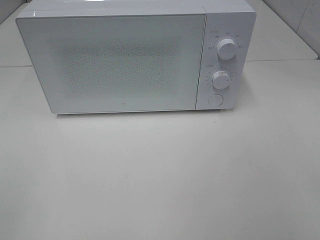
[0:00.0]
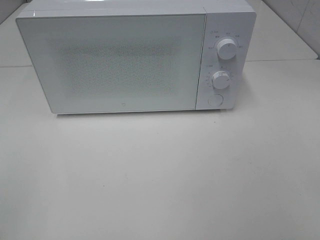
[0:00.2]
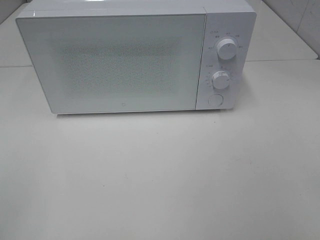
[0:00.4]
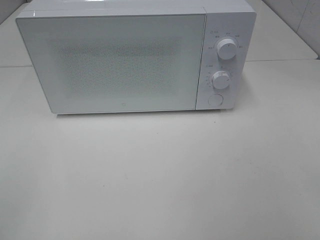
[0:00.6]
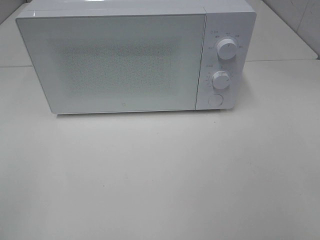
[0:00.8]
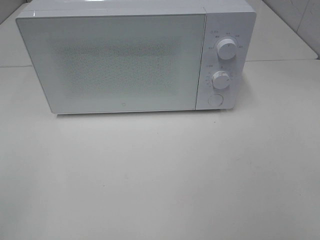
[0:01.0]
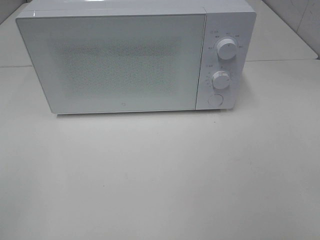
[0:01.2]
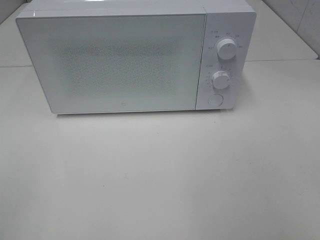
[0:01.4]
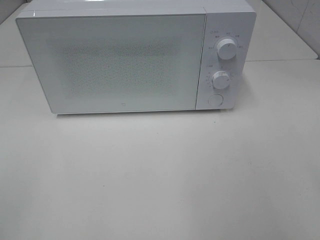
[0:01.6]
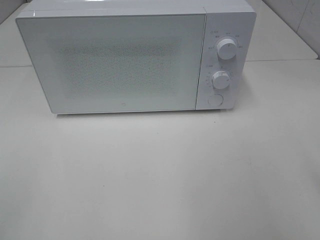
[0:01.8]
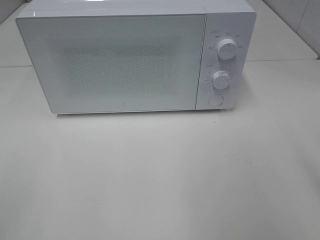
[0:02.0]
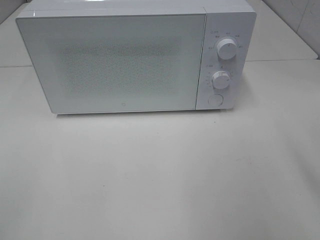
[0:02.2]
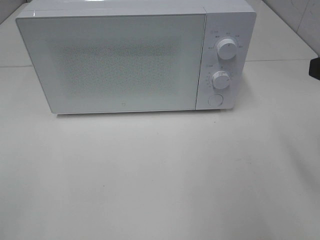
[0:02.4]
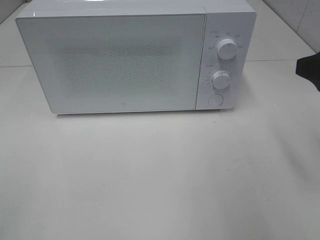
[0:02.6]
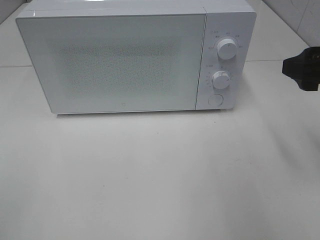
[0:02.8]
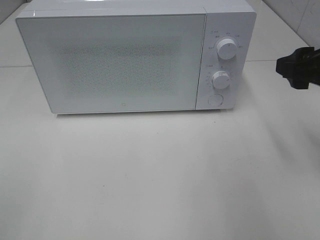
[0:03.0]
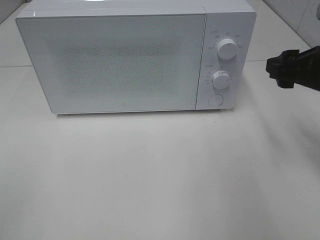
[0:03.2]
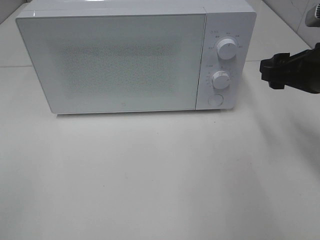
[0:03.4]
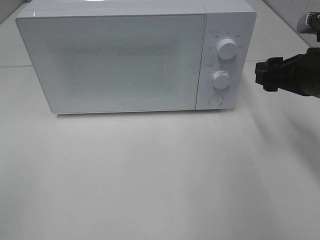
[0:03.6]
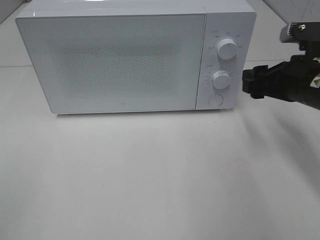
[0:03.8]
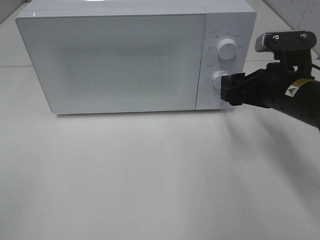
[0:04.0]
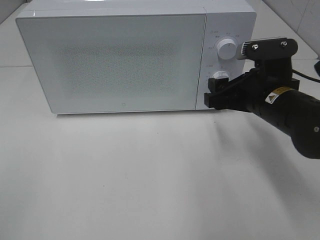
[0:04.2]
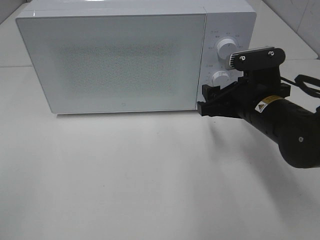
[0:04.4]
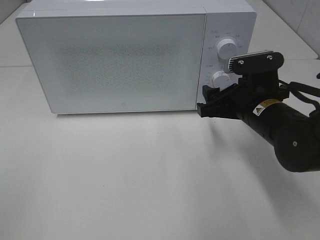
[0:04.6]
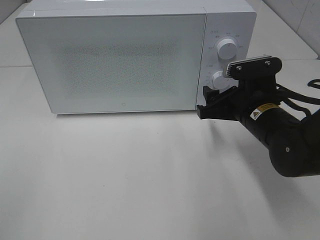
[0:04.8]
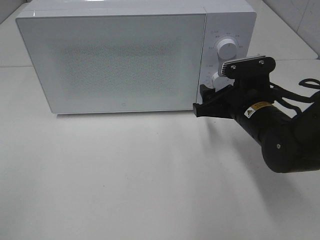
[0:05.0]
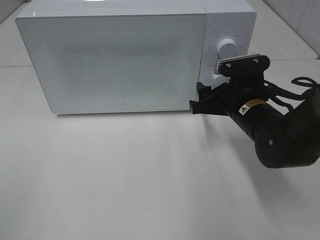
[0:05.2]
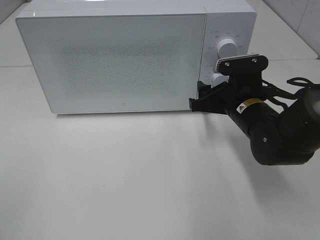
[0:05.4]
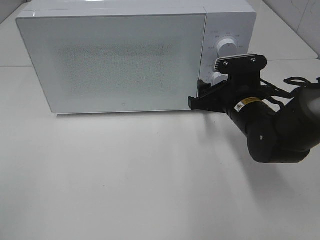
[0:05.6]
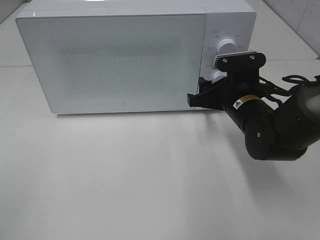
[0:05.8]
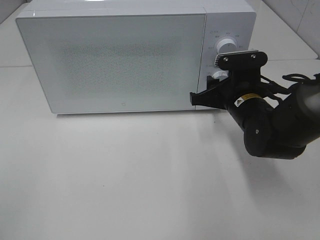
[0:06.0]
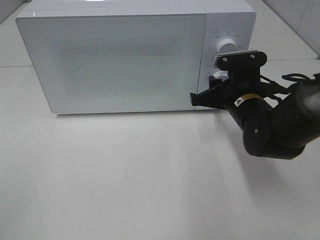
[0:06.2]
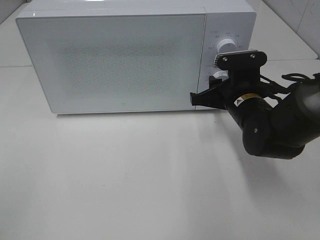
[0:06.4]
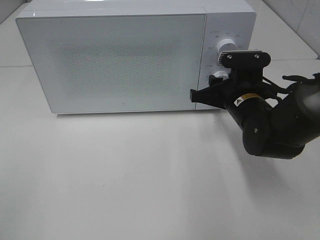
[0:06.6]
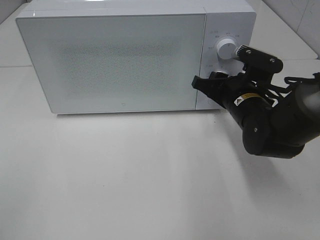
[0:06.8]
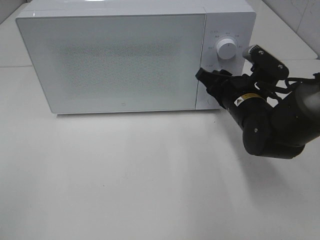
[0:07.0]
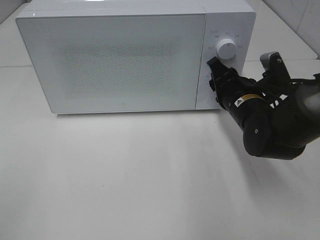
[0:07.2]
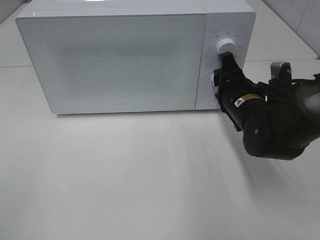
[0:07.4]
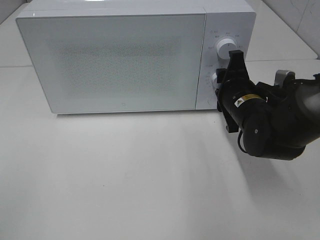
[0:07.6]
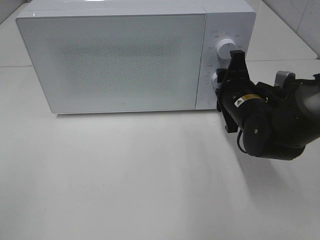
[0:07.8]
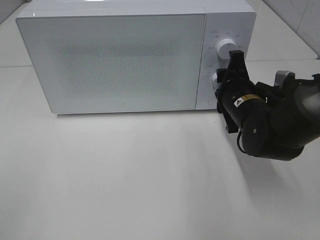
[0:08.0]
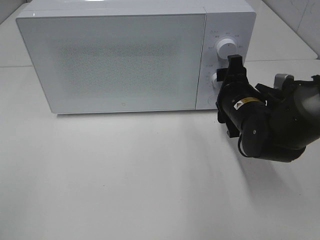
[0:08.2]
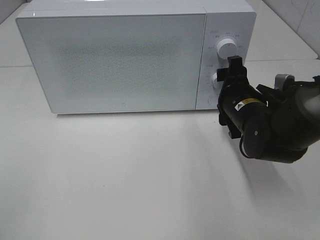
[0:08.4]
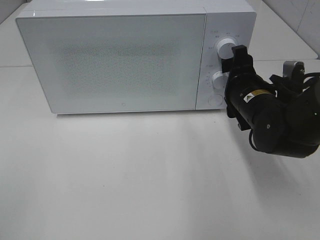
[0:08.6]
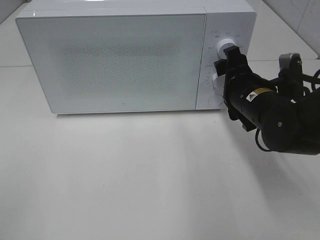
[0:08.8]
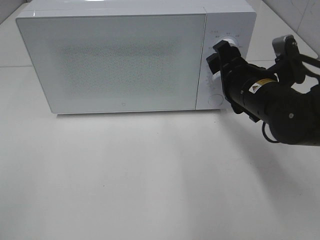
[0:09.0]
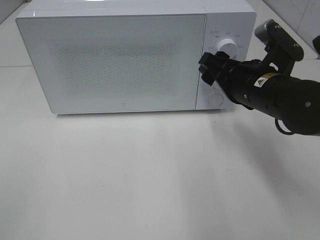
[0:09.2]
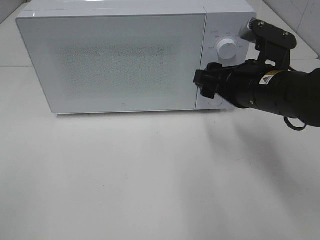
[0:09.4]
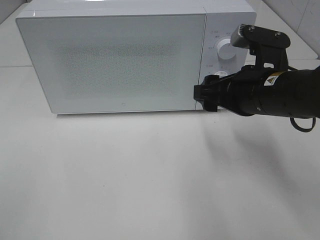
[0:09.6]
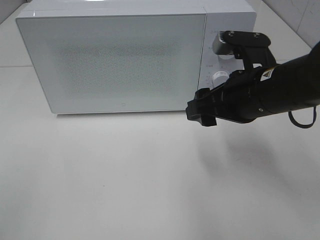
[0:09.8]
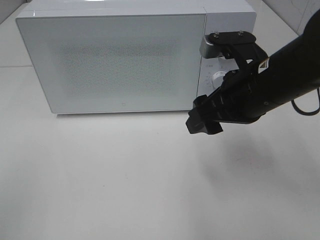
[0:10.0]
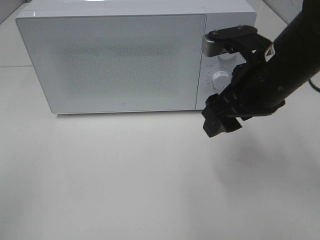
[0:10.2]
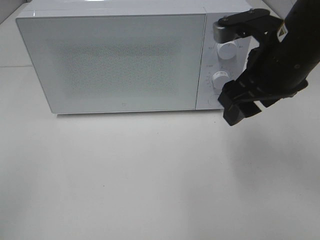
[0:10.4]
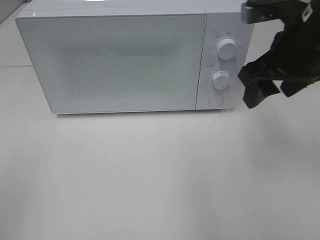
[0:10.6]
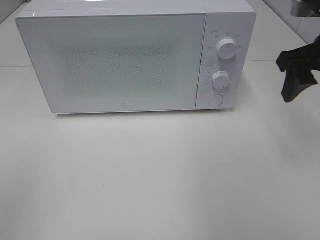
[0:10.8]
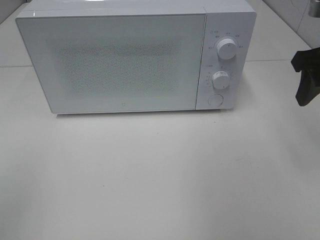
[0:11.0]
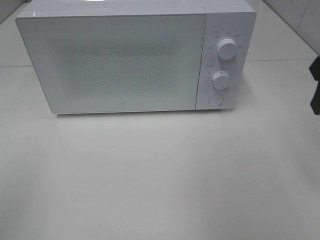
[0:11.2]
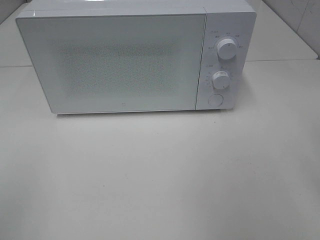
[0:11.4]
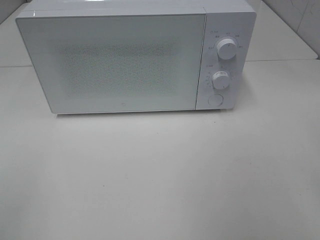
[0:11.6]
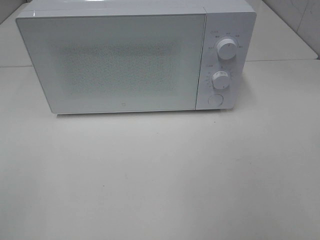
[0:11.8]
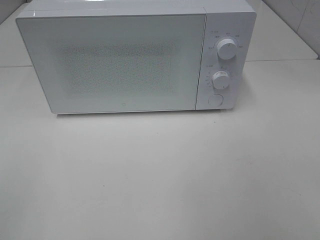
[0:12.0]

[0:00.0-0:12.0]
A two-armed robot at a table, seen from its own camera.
Task of the whole recording: Heat the burger.
Step, 0:00.0 to 0:08.4: Right hand: twist timer button.
0:01.6 to 0:03.0: The right gripper moves forward, some 15 cm.
0:03.0 to 0:04.4: The right gripper goes roughly 15 cm downward and to the left.
0:04.4 to 0:06.0: The right gripper moves about 5 cm.
0:07.6 to 0:09.0: The right gripper ends up approximately 5 cm from where it was, and opens its fingers.
0:09.0 to 0:10.4: The right gripper travels upward by approximately 10 cm.
0:10.4 to 0:12.0: The right gripper shifts roughly 25 cm backward and to the right.

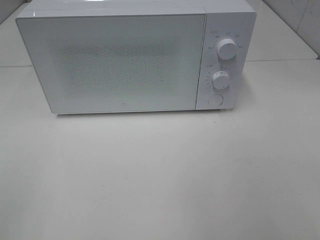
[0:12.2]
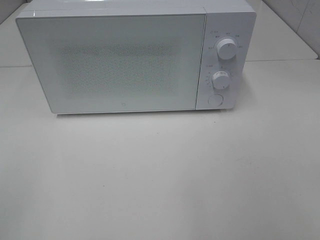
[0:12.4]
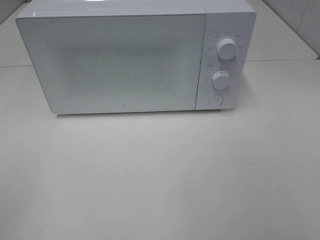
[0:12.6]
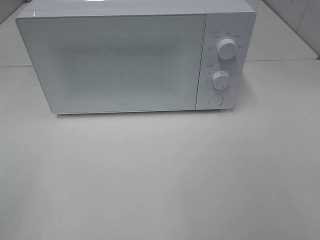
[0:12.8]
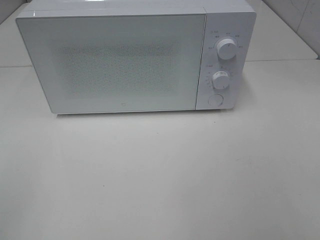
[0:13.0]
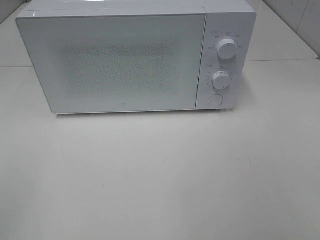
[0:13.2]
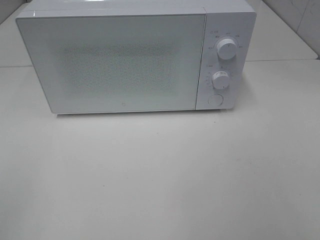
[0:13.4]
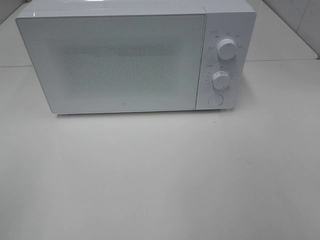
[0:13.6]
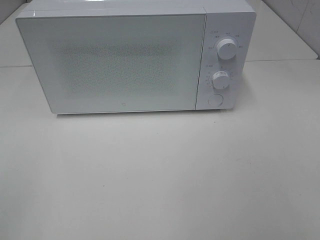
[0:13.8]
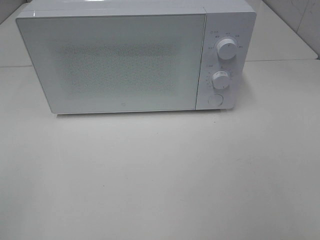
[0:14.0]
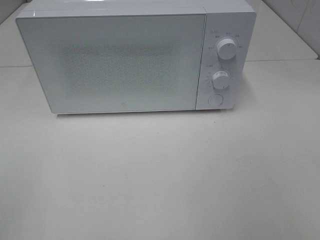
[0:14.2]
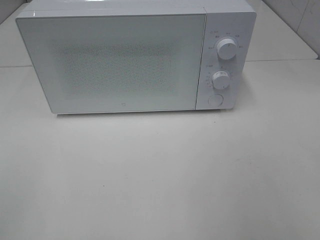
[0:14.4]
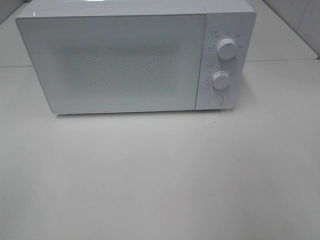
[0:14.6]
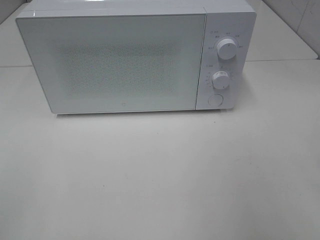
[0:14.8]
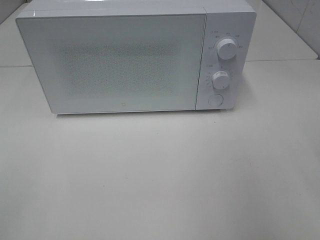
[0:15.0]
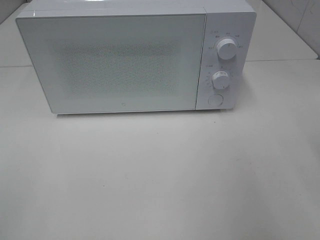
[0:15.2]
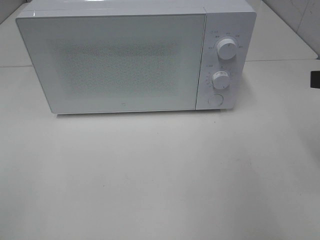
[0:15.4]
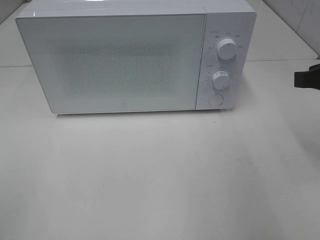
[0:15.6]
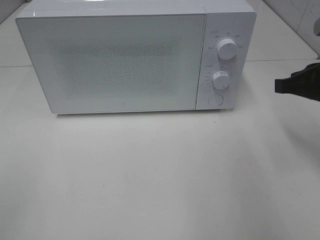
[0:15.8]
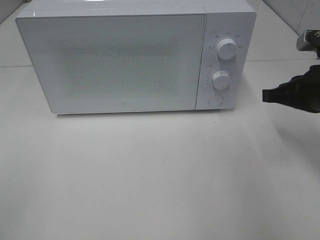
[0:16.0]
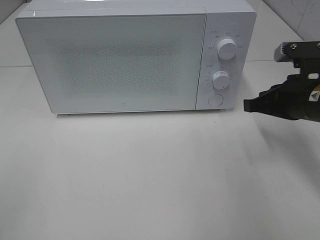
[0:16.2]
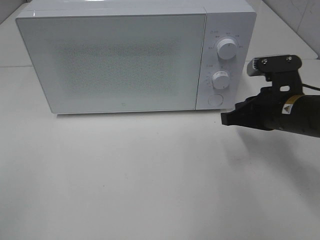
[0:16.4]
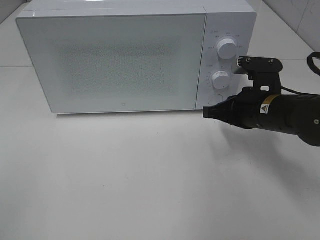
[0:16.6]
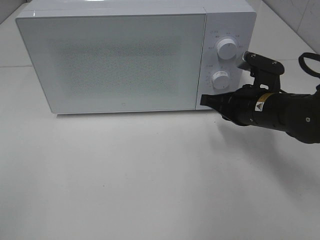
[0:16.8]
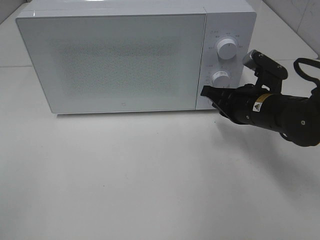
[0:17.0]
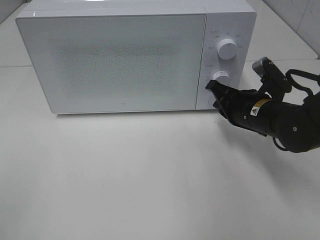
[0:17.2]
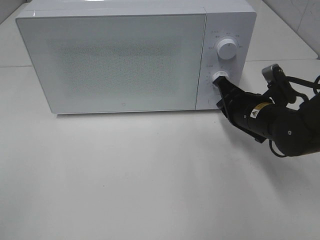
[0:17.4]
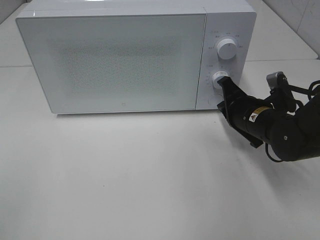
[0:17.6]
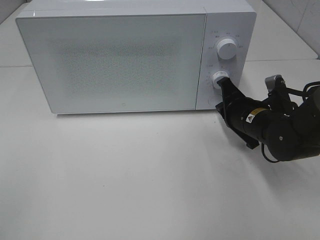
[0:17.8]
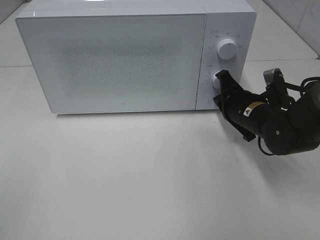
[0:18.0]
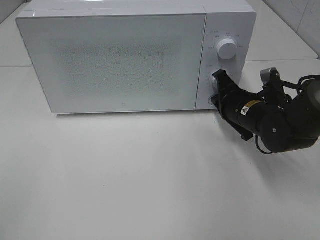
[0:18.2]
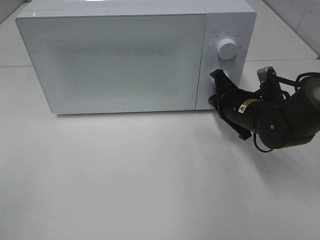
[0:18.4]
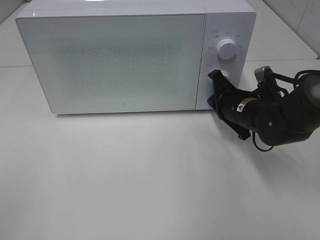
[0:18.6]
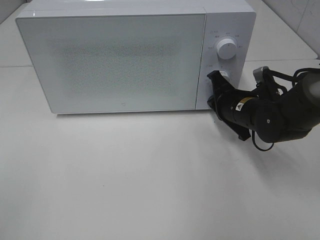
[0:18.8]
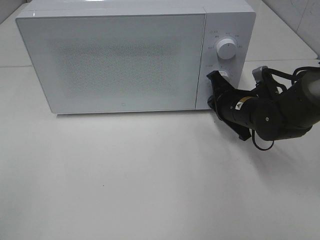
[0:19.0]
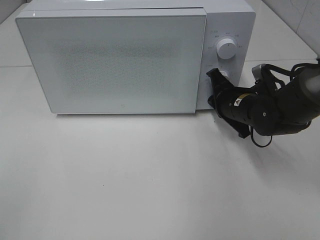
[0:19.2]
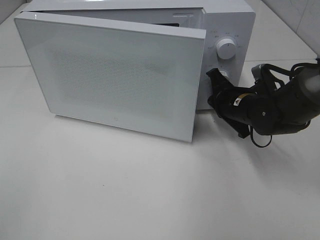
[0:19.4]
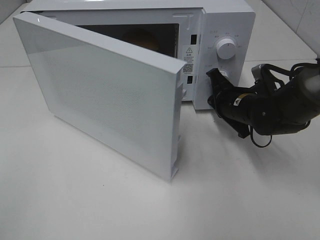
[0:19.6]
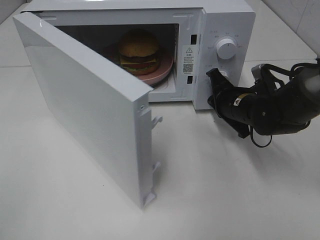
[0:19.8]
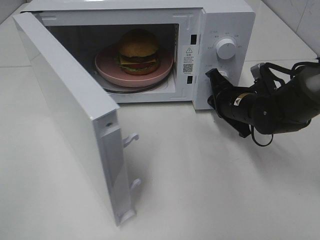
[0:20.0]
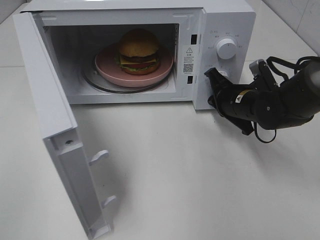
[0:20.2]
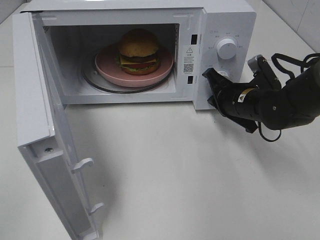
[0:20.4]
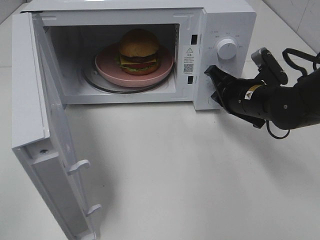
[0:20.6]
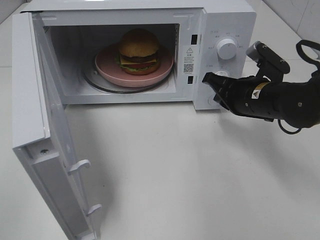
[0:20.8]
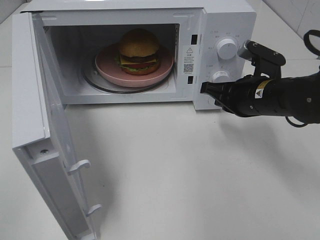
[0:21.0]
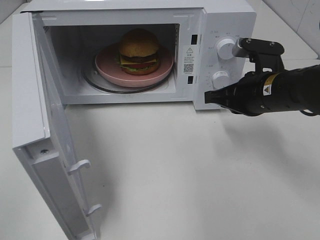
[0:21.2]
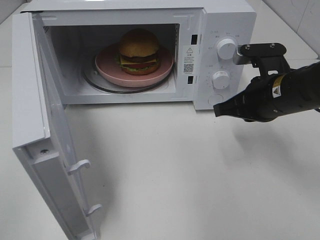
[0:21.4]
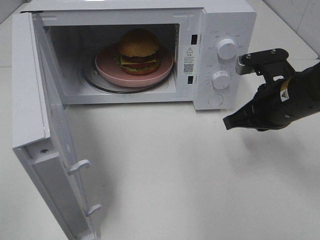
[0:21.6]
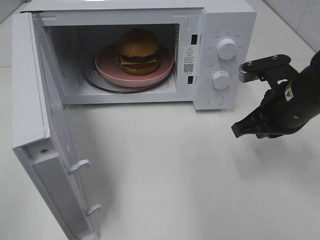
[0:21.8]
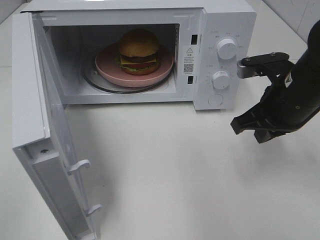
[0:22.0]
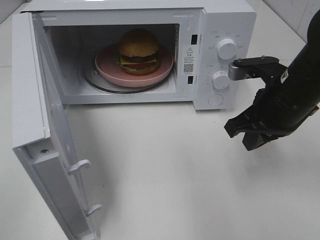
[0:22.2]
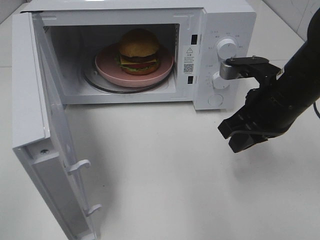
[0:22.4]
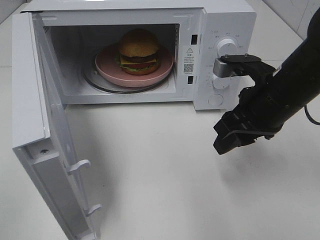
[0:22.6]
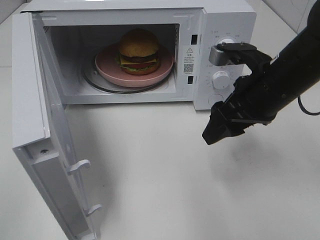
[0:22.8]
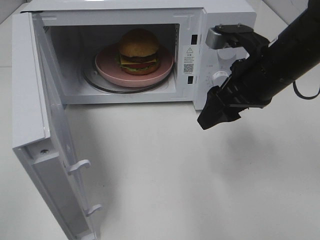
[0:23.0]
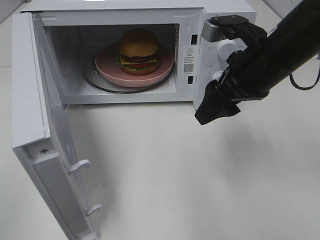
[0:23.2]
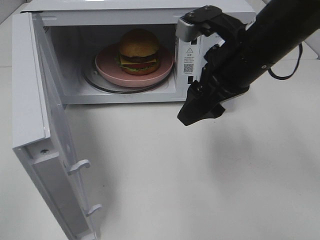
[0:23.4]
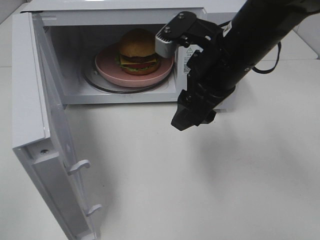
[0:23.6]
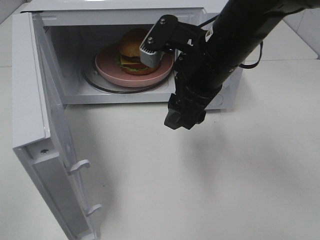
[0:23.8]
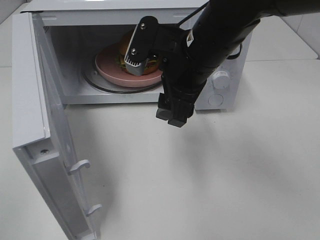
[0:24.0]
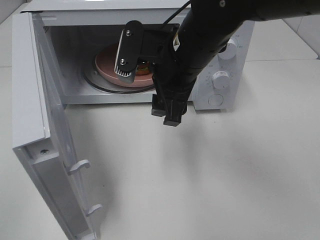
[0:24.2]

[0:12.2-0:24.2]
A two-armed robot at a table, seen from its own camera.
Task of the whole recording: Heat the burger.
Step, 0:12.2 to 0:20.6: Right hand: press the switch.
0:15.2 to 0:16.6: The right gripper heads downward, forward and to the left, covering roughly 20 cm.
0:16.6 to 0:18.2: The right gripper shifts by about 5 cm.
0:19.8 to 0:21.2: The right gripper heads upward and backward, covering about 10 cm.
0:21.2 to 0:22.6: The right gripper opens.
0:22.6 to 0:24.2: The right gripper is displaced to the left by approximately 15 cm.
